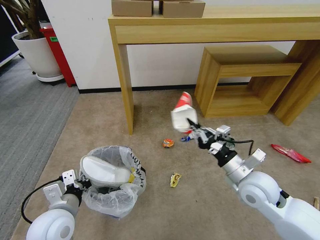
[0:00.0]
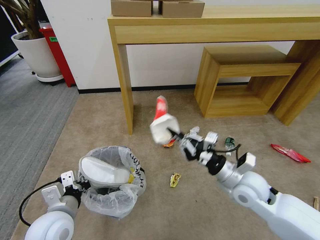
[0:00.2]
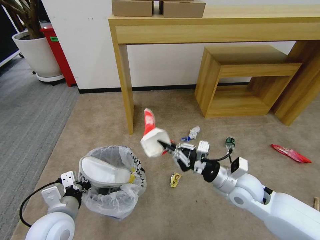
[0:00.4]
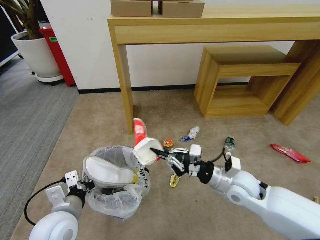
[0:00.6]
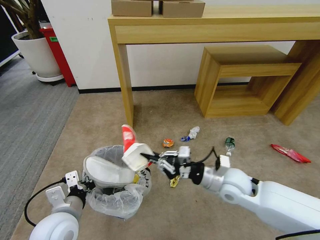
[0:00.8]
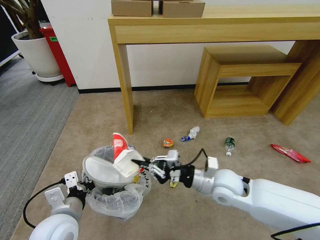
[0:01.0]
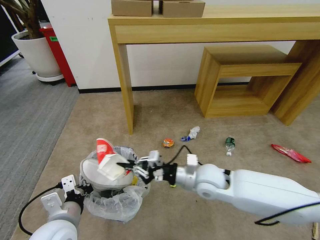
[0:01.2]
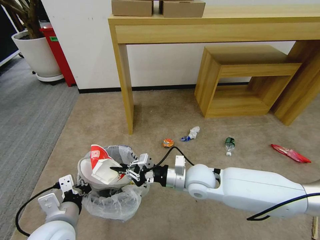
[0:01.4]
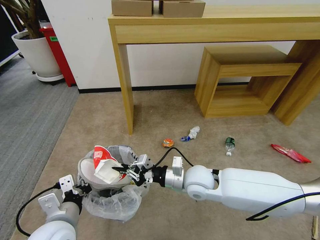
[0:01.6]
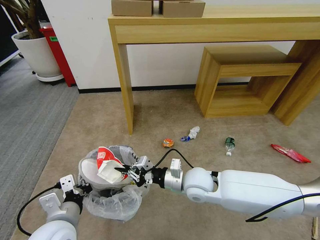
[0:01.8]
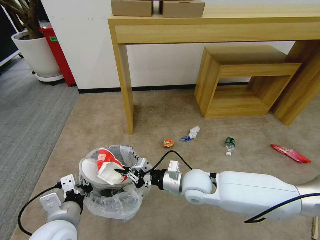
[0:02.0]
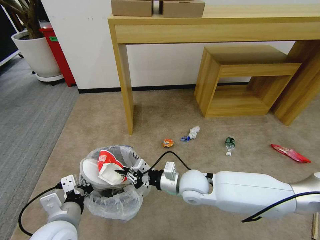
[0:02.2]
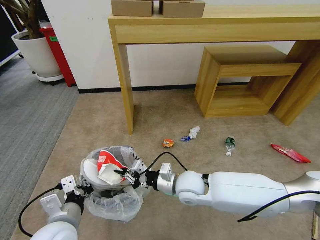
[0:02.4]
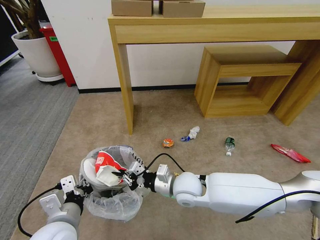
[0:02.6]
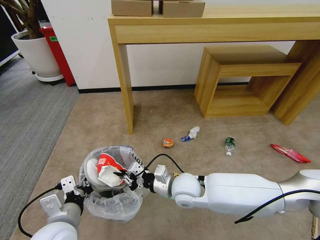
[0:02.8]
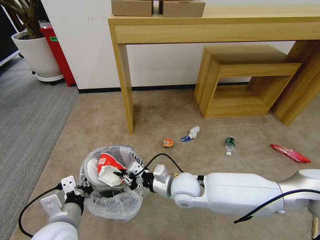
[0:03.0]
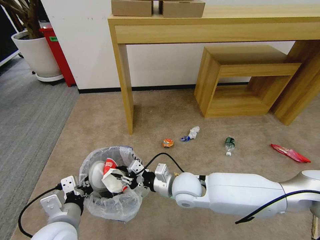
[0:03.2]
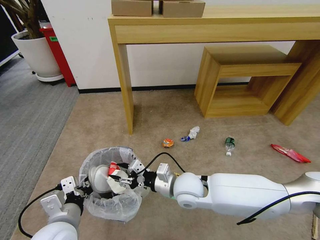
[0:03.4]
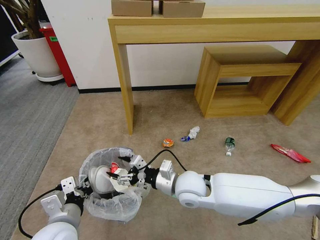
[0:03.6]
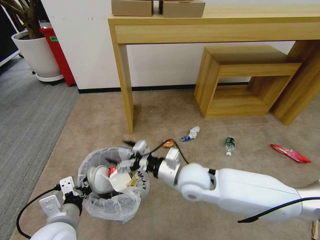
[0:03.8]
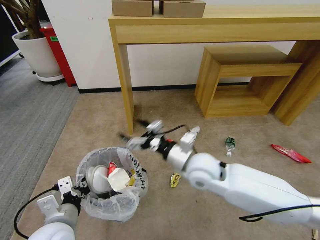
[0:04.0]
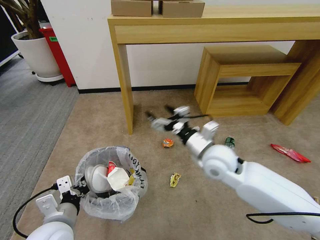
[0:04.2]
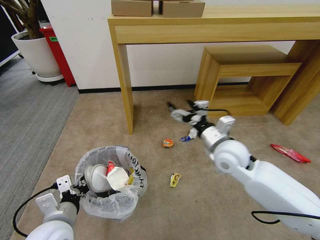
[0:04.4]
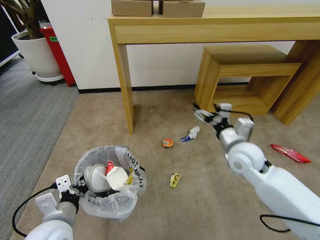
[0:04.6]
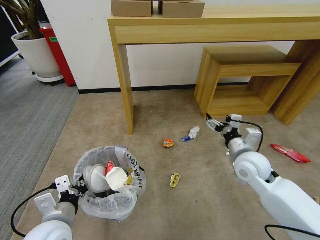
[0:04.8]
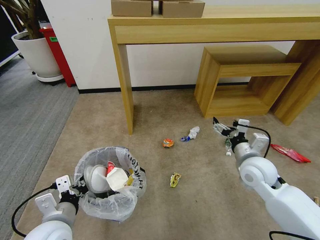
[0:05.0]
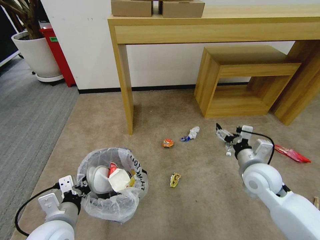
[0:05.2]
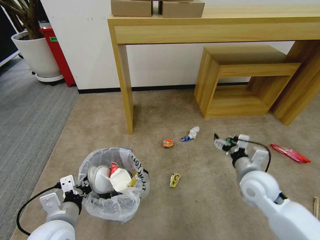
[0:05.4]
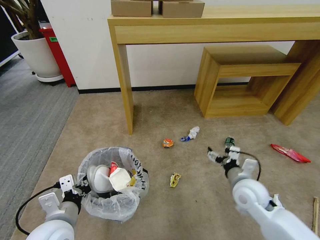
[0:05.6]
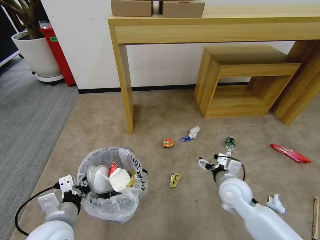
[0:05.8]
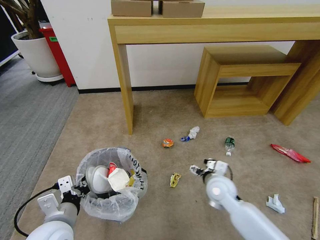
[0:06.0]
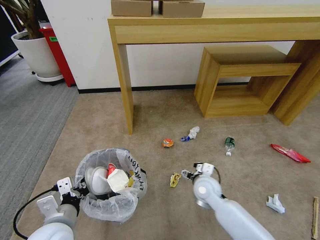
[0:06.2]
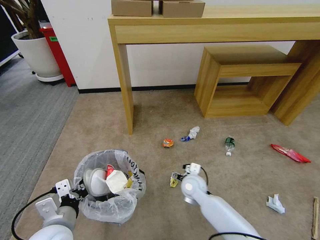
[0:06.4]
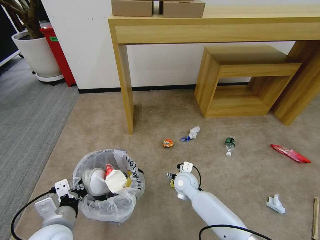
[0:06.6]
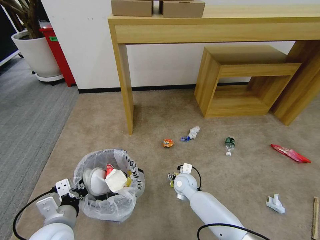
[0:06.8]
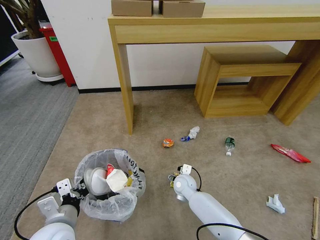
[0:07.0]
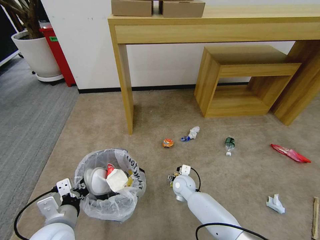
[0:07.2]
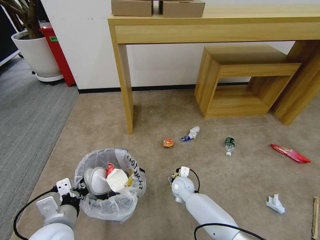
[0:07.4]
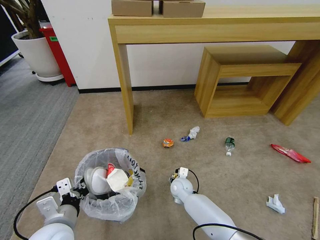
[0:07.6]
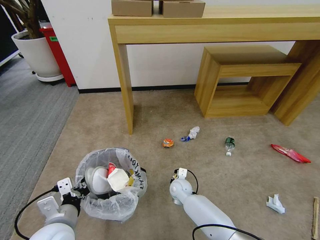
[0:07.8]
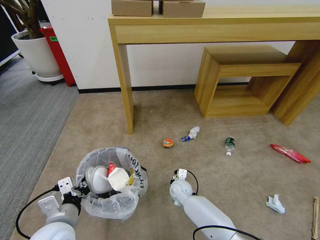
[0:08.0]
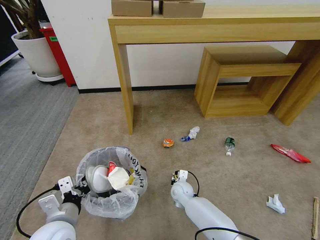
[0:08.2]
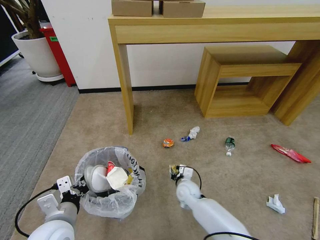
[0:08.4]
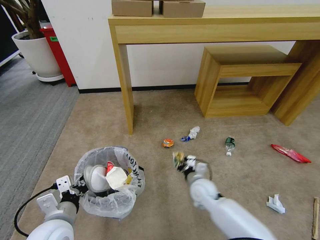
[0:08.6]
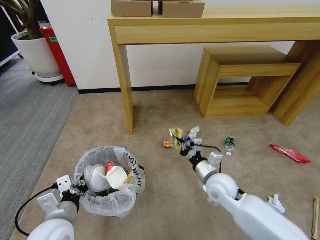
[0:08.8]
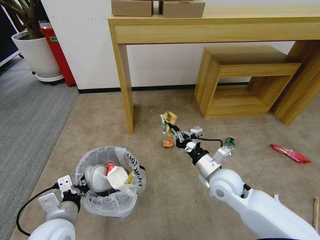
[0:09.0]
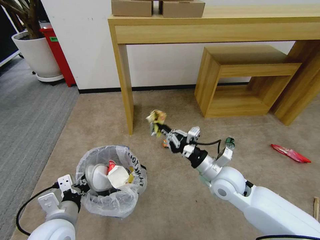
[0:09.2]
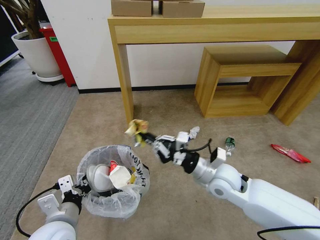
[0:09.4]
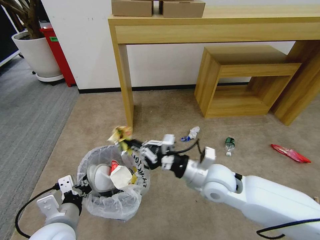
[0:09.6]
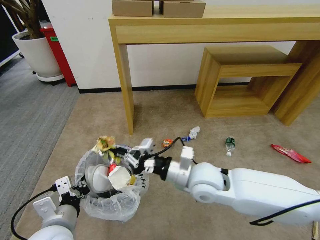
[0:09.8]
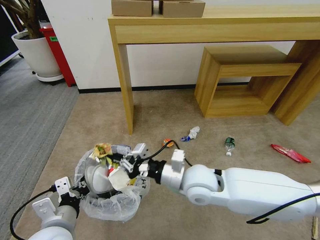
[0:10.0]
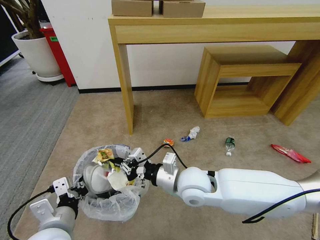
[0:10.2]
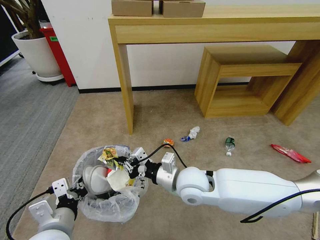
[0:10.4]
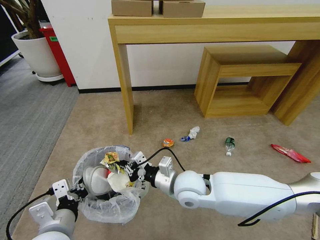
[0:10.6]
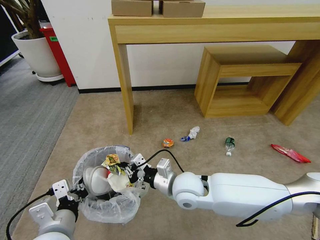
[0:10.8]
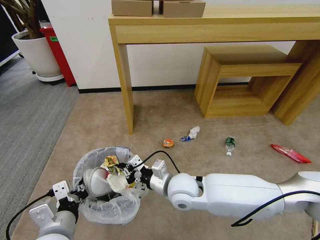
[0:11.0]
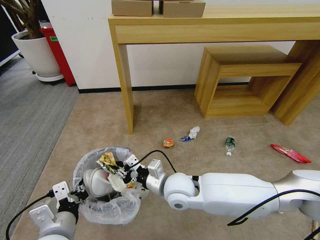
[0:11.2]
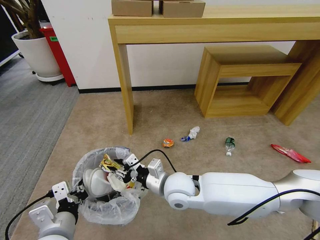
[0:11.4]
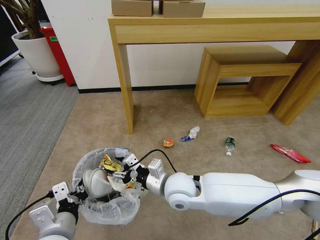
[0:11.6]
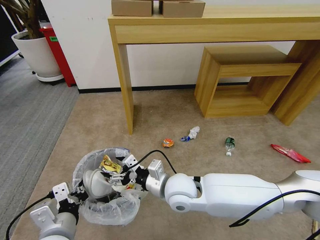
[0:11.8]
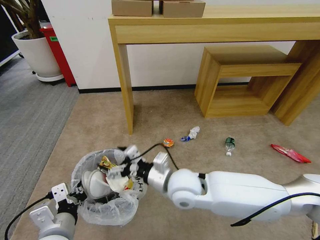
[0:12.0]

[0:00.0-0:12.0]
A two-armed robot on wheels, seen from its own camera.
Task of the whole recording: Pick up the trash bin and place the garbage on the floor into it.
0:00.0 to 0:01.6: The right gripper goes roughly 15 cm to the left.
0:01.6 to 0:03.0: The grippers move only a little.
0:03.0 to 0:04.4: The right gripper travels to the right, upward and forward by roughly 15 cm, and opens its fingers.
0:04.4 to 0:06.0: The right gripper shifts some 15 cm downward.
0:06.0 to 0:07.6: The right gripper travels downward, to the left and forward by approximately 20 cm.
0:07.6 to 0:09.0: The right gripper shifts some 20 cm upward, to the right and backward, and closes.
0:09.0 to 0:10.4: The right gripper heads to the left and upward, covering roughly 15 cm.
0:10.4 to 0:12.0: The right gripper moves approximately 5 cm, and opens up.

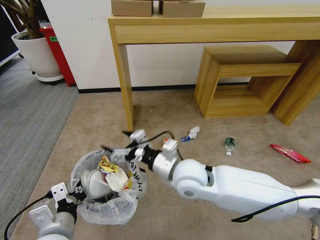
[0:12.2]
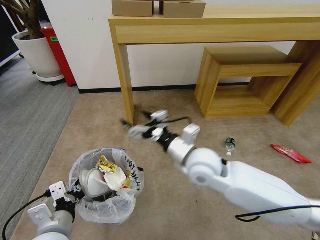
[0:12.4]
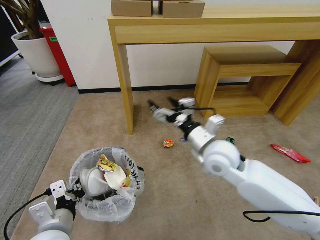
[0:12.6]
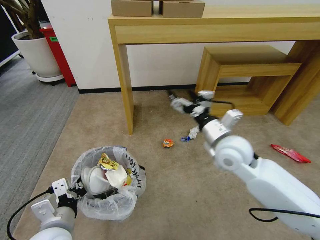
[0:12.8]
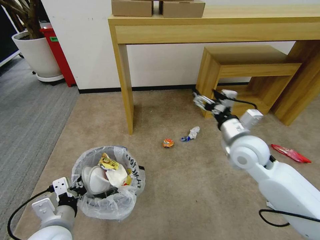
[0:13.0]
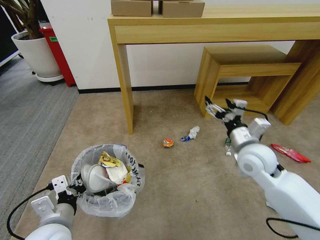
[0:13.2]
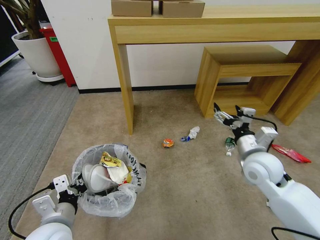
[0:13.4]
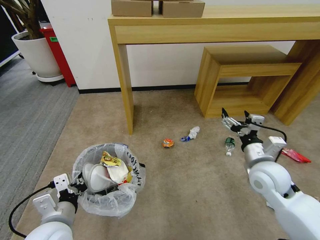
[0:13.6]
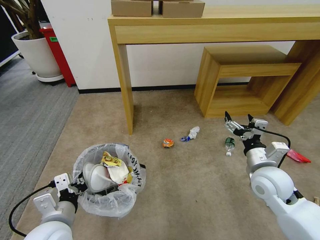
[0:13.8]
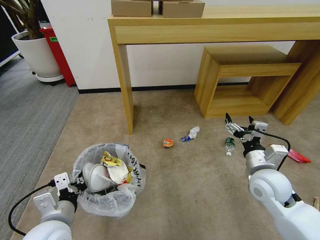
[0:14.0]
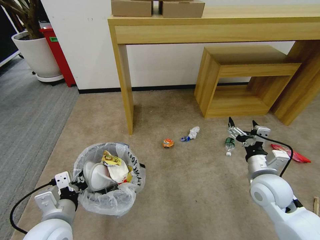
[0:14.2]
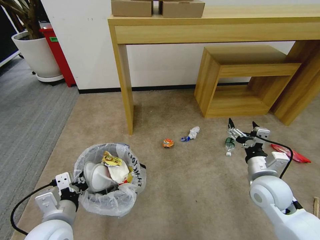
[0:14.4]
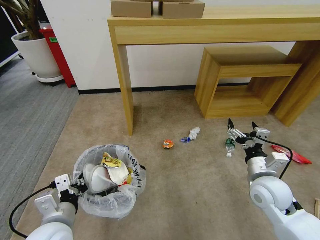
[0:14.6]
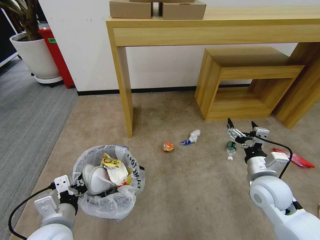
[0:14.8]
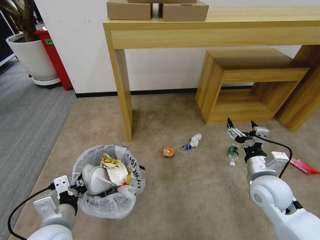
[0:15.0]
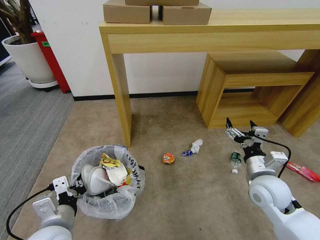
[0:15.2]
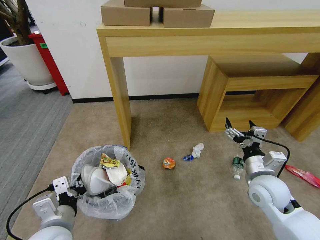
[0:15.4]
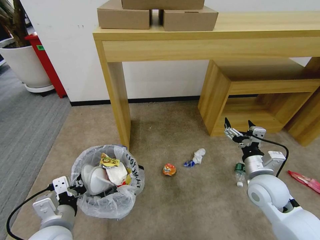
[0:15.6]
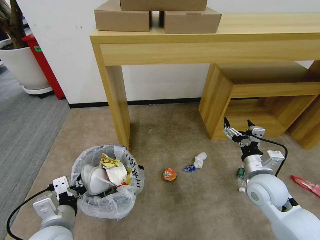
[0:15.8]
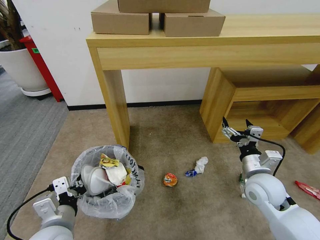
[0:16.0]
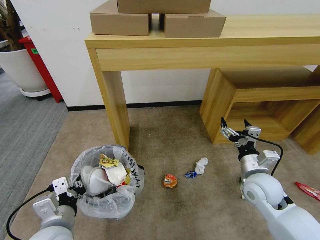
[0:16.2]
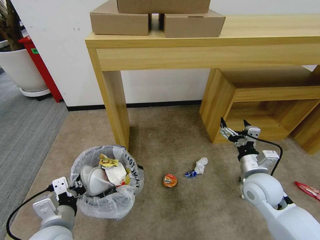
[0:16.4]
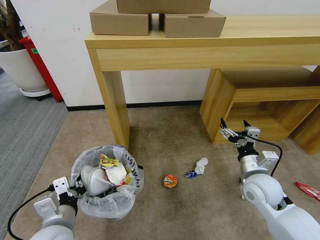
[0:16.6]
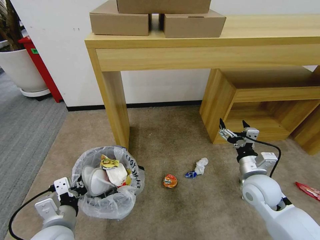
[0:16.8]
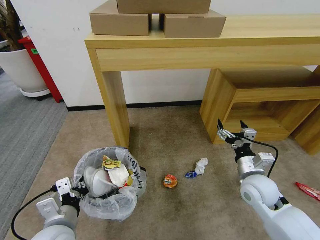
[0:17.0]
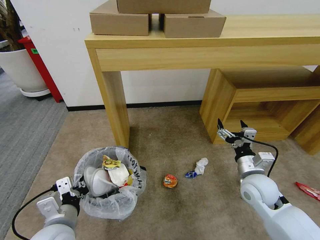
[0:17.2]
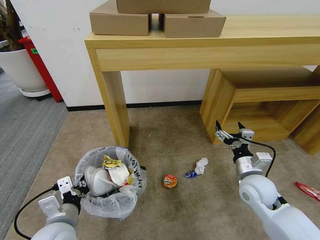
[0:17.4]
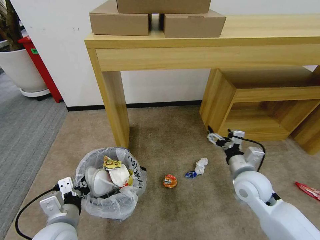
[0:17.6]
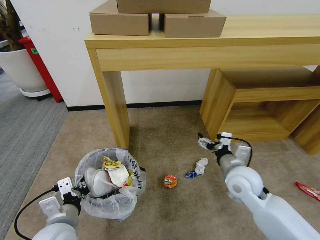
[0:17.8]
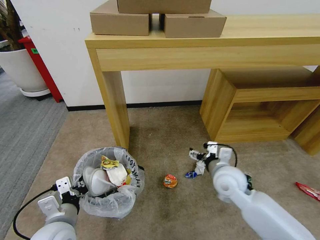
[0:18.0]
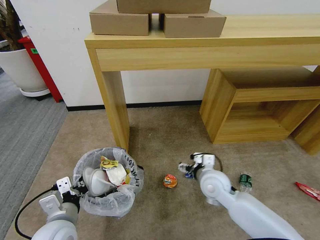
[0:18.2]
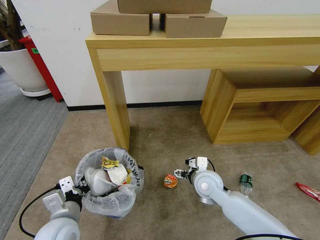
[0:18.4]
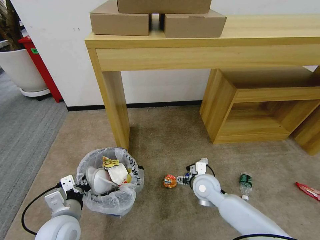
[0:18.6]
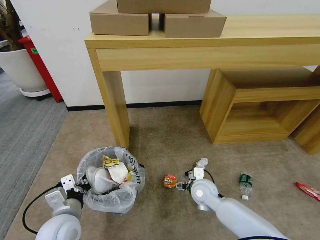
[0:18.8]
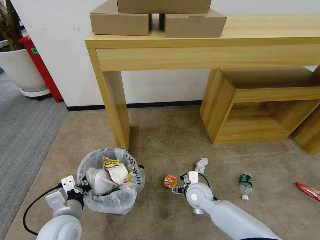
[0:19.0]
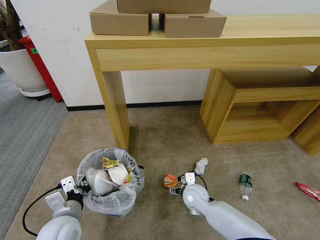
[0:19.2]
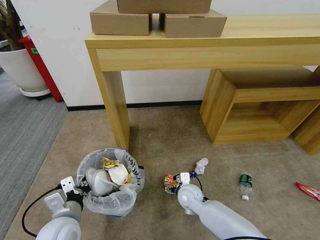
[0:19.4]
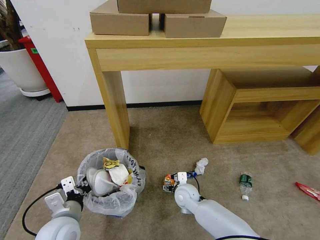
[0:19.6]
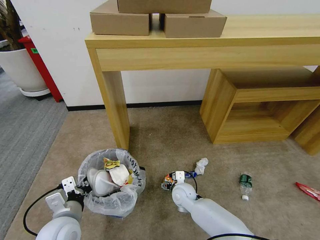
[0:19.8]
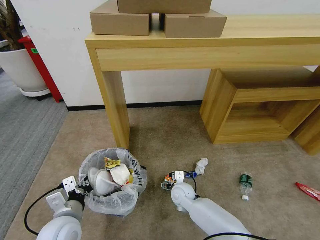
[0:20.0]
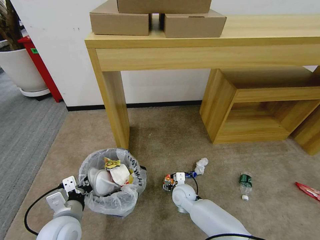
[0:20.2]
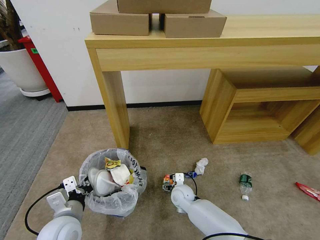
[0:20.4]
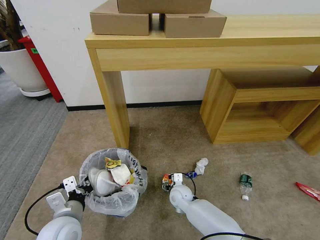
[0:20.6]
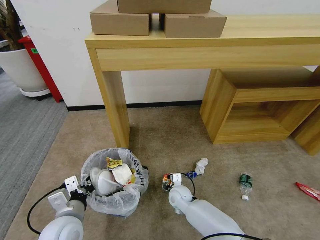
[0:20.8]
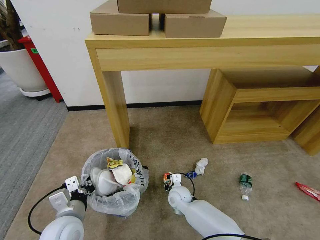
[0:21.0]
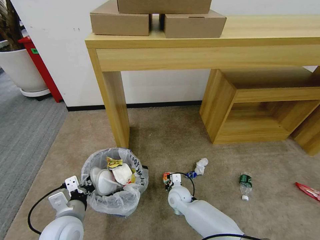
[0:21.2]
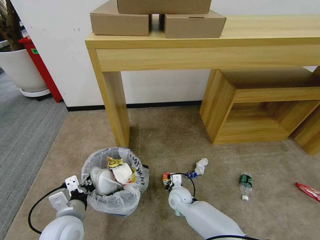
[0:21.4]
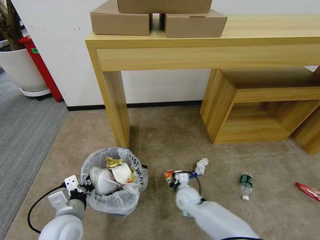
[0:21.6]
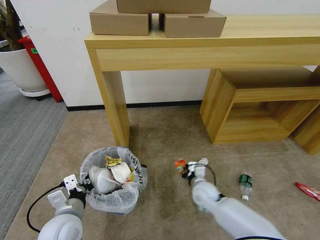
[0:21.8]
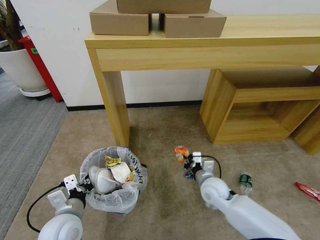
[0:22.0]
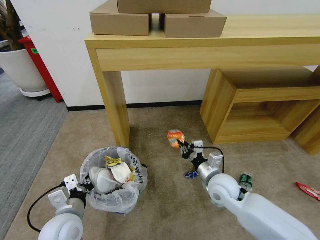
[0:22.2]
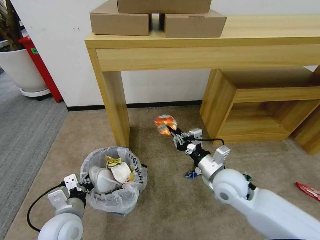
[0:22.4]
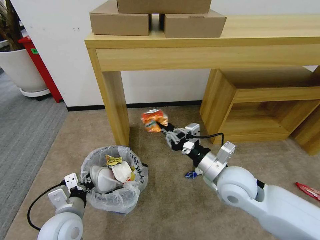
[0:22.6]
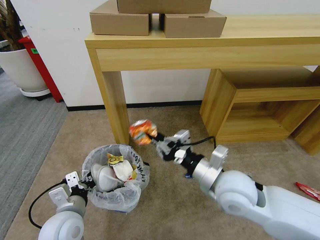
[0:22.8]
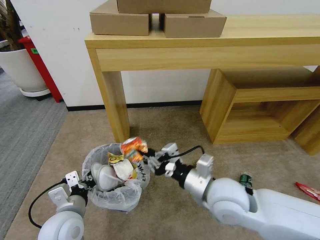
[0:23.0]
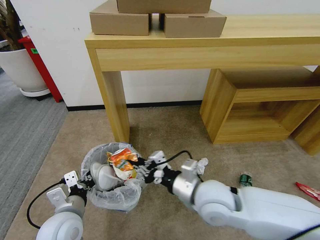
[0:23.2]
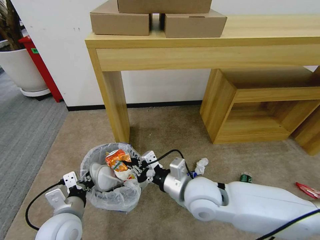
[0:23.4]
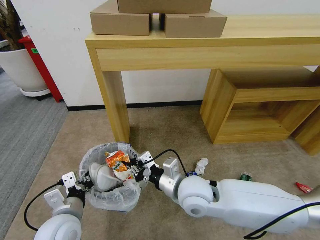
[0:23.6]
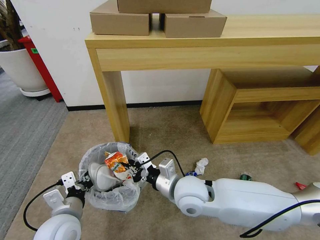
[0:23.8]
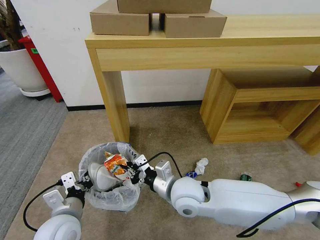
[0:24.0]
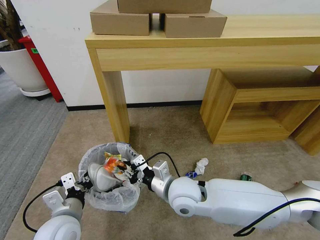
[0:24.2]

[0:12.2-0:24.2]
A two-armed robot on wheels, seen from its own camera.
Task of the whole recording: Pick up the trash bin and place the garbage on the floor into it.
0:12.2 to 0:13.8: The right gripper moves to the right and upward, approximately 20 cm.
0:13.8 to 0:15.2: The right gripper goes approximately 15 cm downward, backward and to the right.
0:16.6 to 0:18.2: The grippers move only a little.
0:18.2 to 0:19.8: The right gripper heads to the left and downward, covering approximately 20 cm.
0:19.8 to 0:21.2: The right gripper goes about 5 cm downward, and closes its fingers.
0:21.2 to 0:22.6: The right gripper heads upward and to the right, covering some 30 cm.
0:22.6 to 0:24.2: The right gripper travels to the left by about 15 cm.
